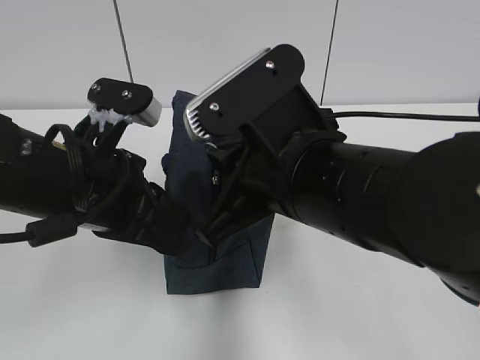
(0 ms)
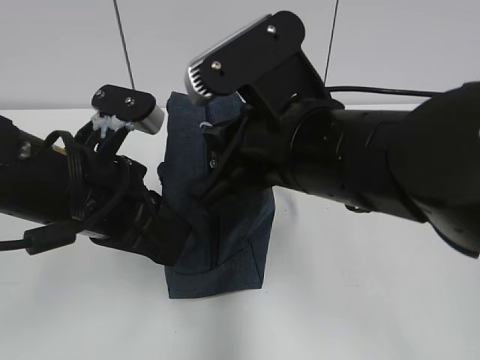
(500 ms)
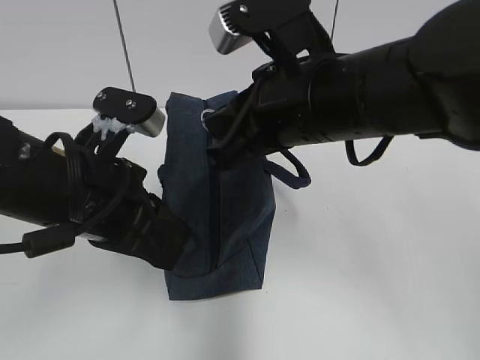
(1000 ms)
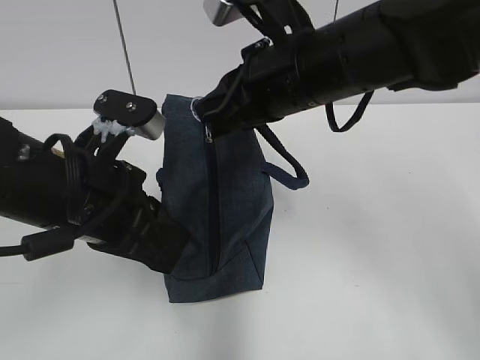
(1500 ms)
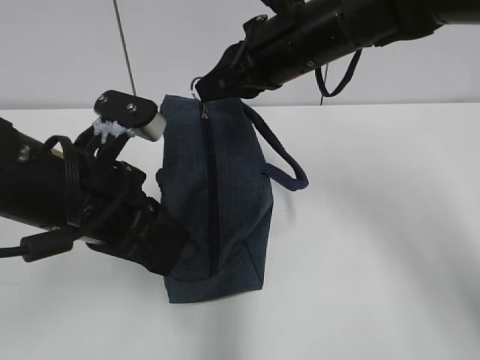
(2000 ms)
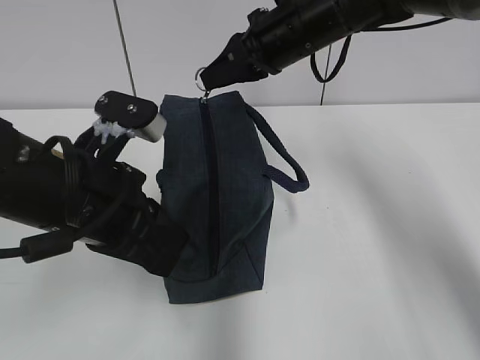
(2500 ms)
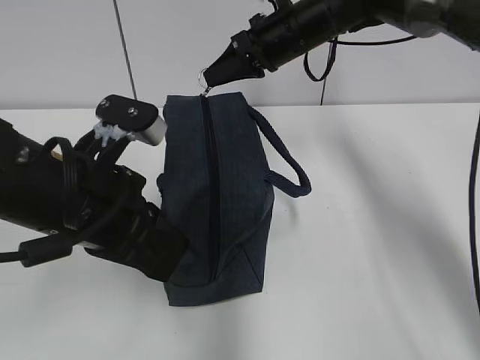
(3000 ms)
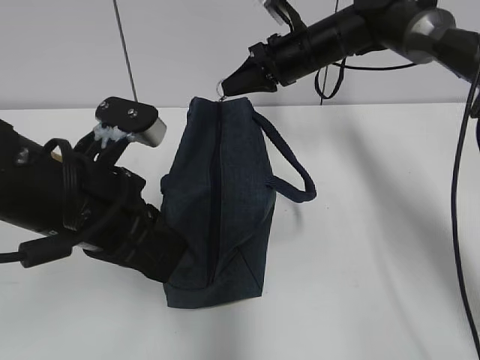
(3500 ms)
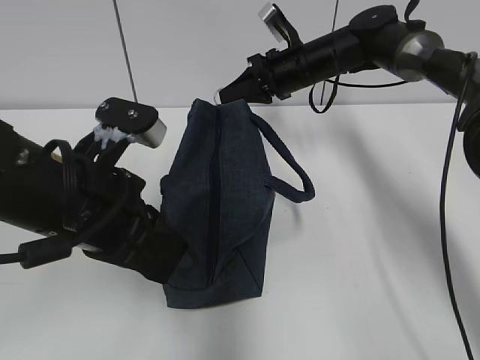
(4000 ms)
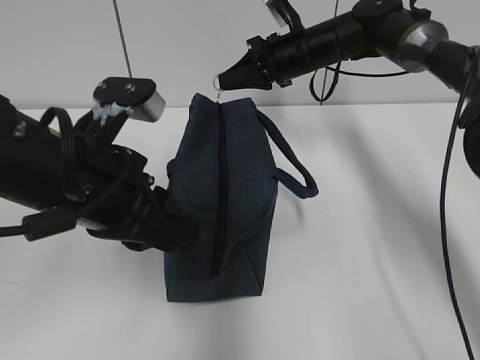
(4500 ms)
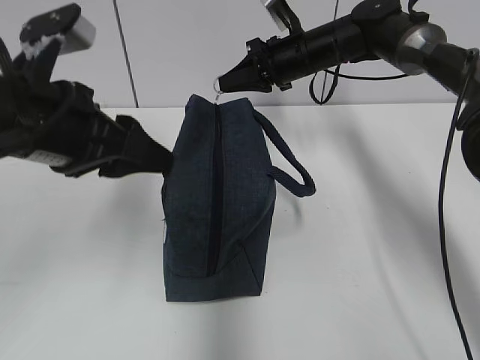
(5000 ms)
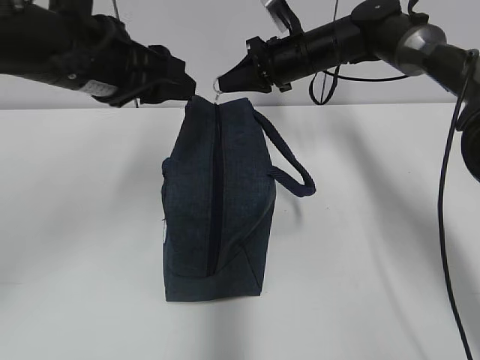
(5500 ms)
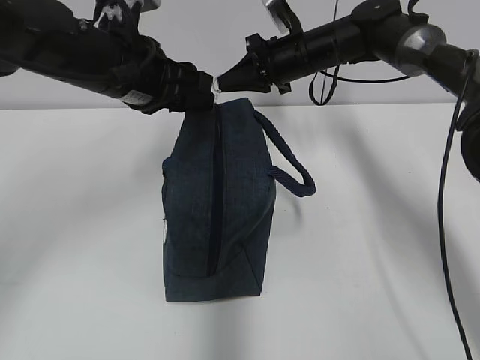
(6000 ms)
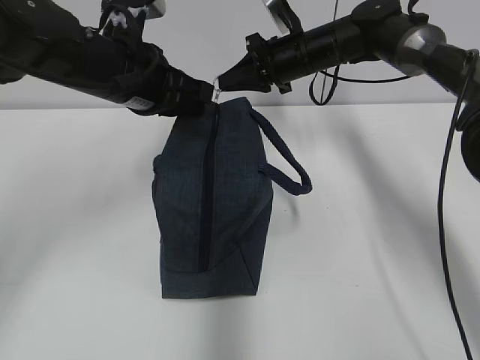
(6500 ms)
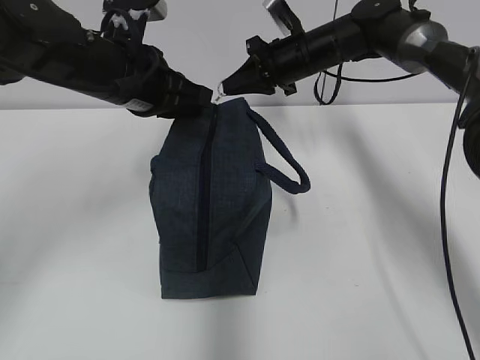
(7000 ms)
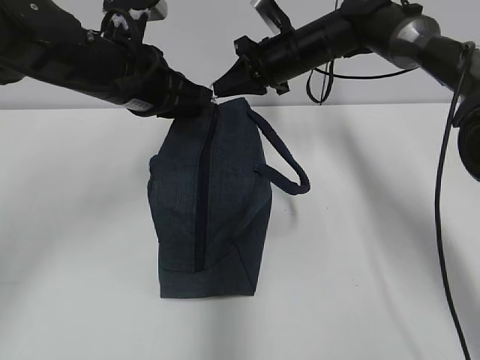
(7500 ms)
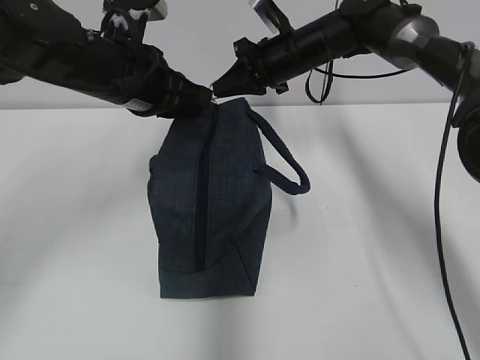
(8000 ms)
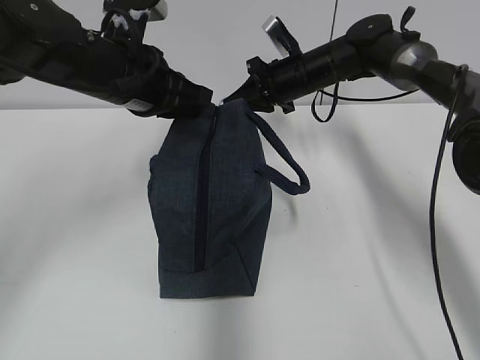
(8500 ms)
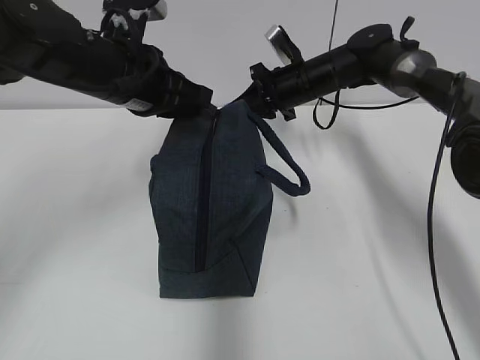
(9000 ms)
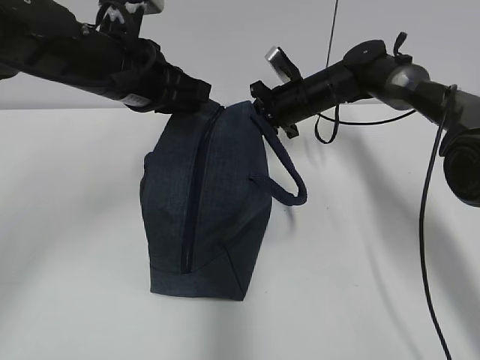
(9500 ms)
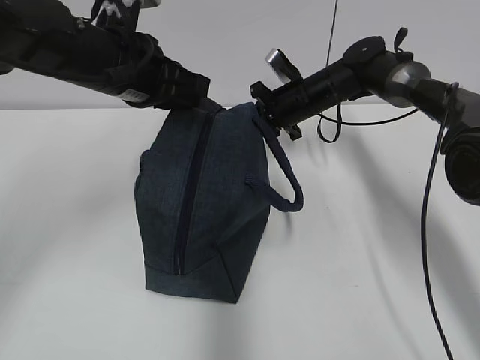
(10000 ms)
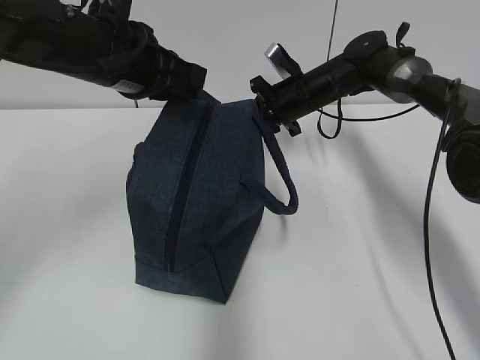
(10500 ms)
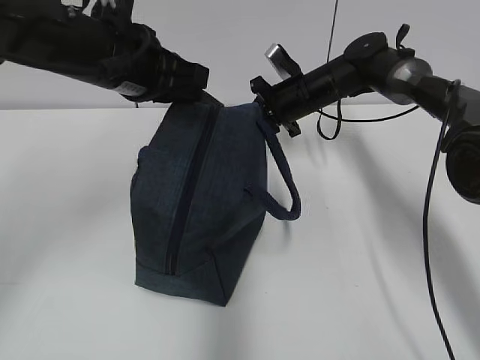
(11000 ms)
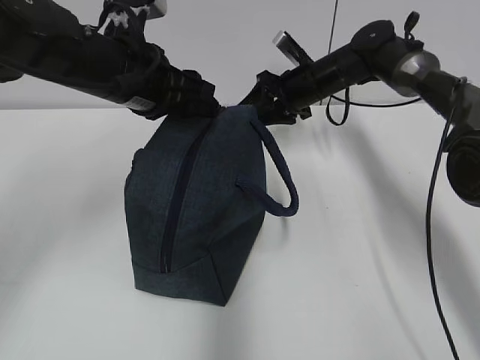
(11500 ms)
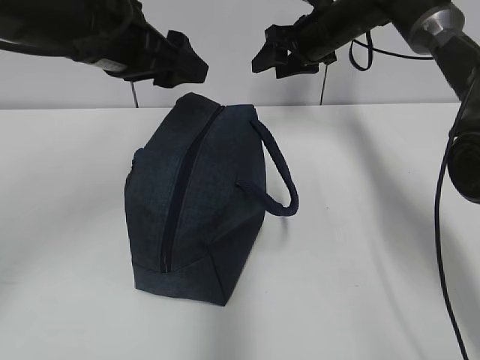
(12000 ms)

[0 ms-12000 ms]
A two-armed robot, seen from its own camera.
0 ms to 2000 ms: The right gripper moves forward, roughly 15 cm.
2000 ms to 4000 ms: The right gripper goes some 20 cm forward and downward.
4000 ms to 6000 ms: The left gripper moves forward, roughly 15 cm, and opens up.
6000 ms to 8000 ms: The left gripper closes.
8000 ms to 10000 ms: The right gripper moves downward, approximately 10 cm.
10000 ms to 12000 ms: The left gripper opens up. Meanwhile the right gripper heads upward, covering about 10 cm, and opens its fingers.

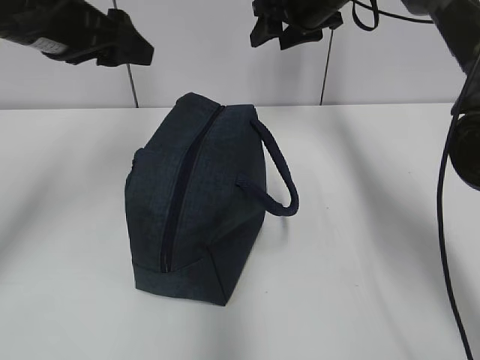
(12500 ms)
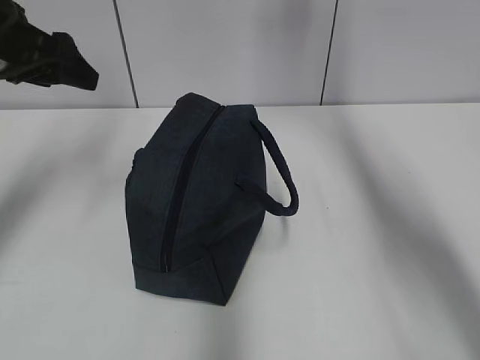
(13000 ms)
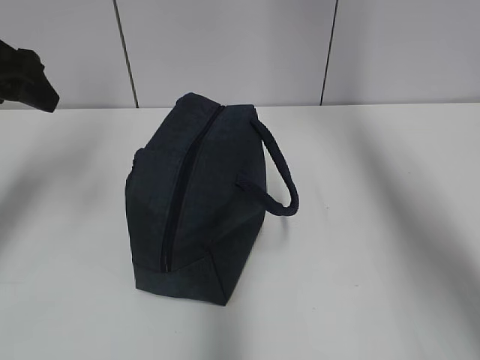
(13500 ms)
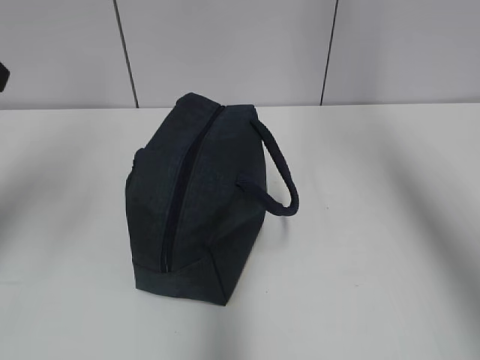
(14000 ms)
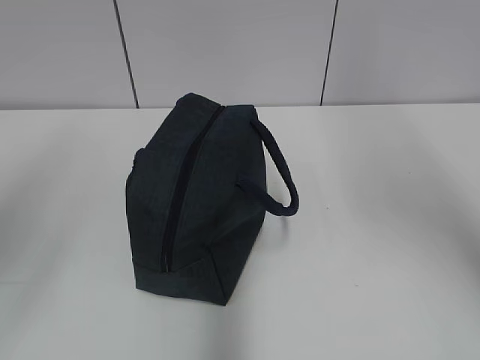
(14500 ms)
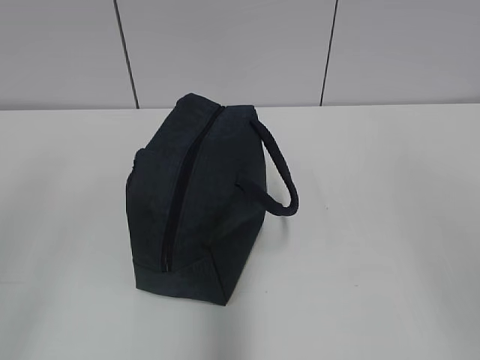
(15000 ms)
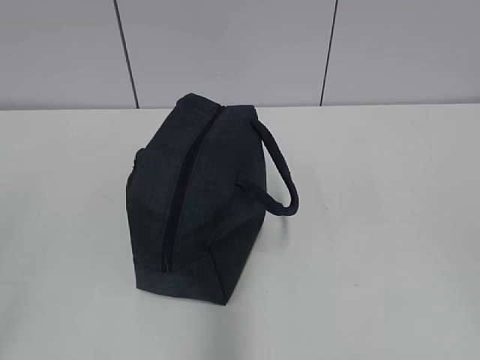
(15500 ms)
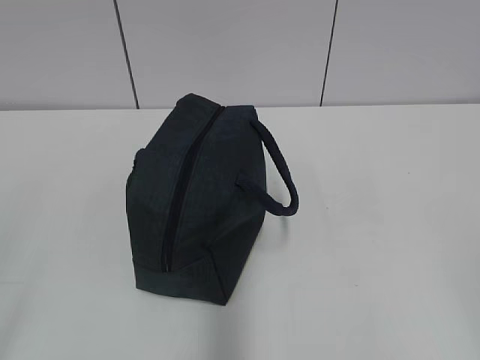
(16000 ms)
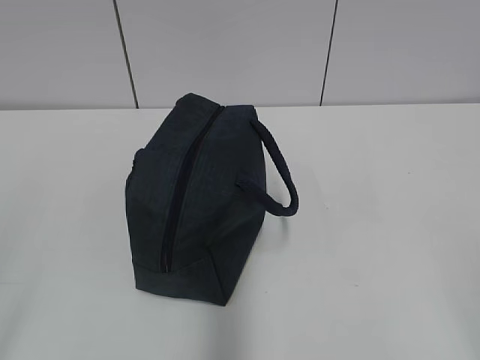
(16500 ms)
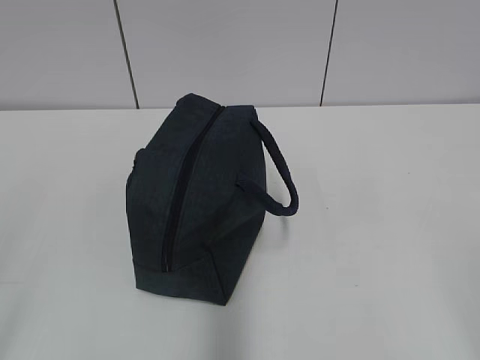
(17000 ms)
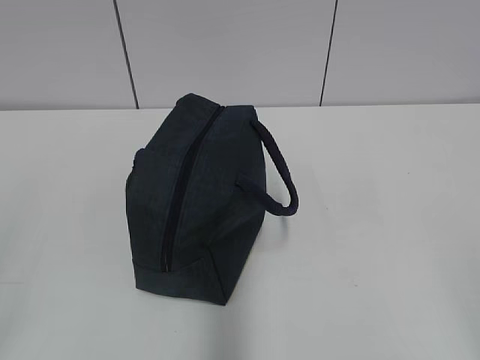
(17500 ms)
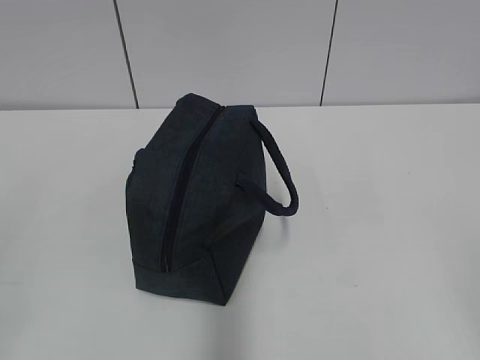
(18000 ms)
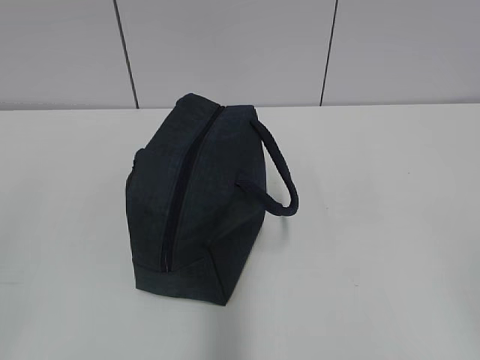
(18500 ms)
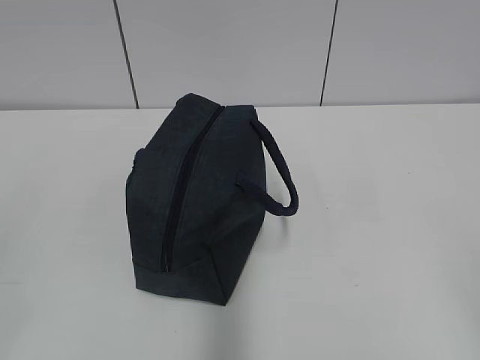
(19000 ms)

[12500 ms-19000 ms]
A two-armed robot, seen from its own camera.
12500 ms to 14500 ms: The left gripper is displaced backward and to the left by about 20 cm. The right gripper moves backward and upward, about 40 cm.
14500 ms to 17000 ms: The right gripper goes some 30 cm downward and backward; the left gripper goes some 20 cm backward and downward.

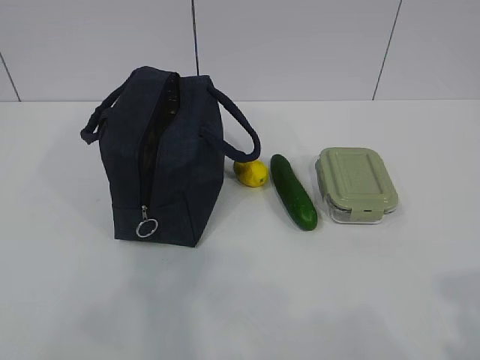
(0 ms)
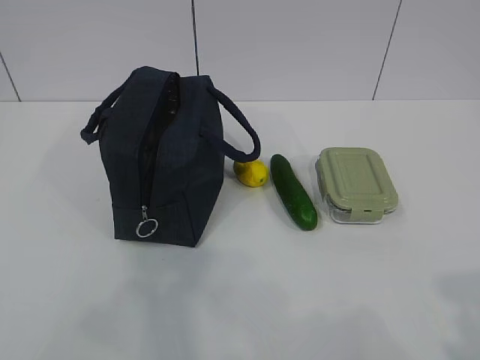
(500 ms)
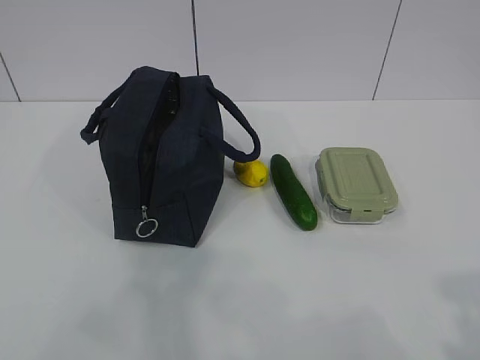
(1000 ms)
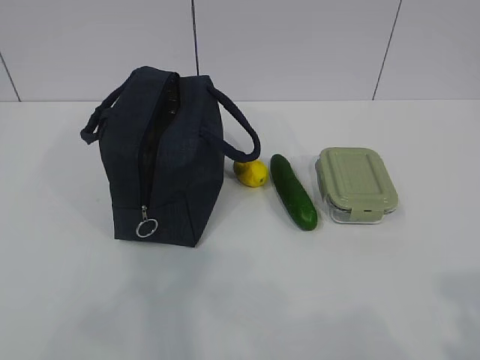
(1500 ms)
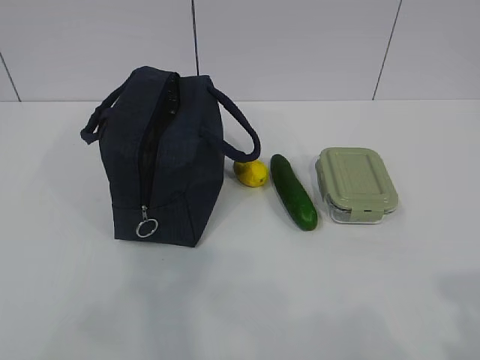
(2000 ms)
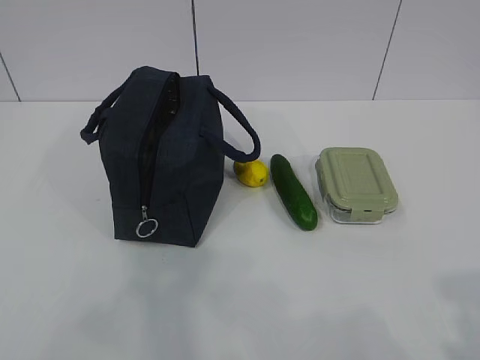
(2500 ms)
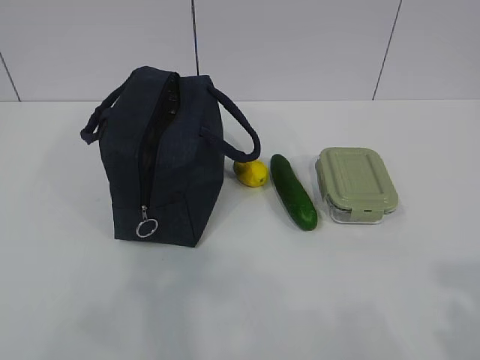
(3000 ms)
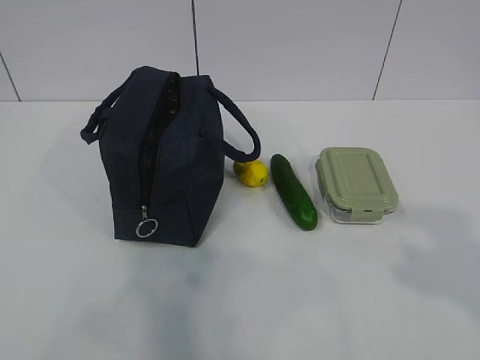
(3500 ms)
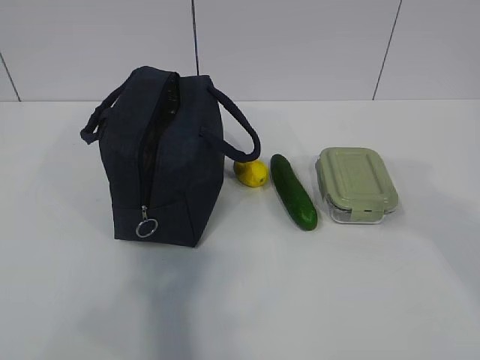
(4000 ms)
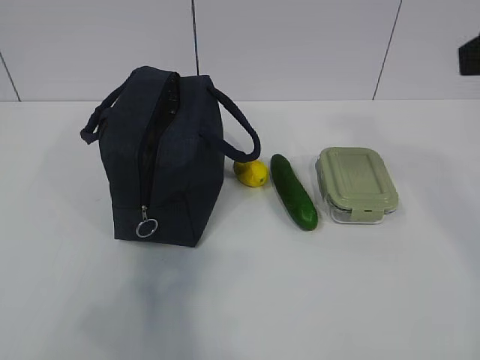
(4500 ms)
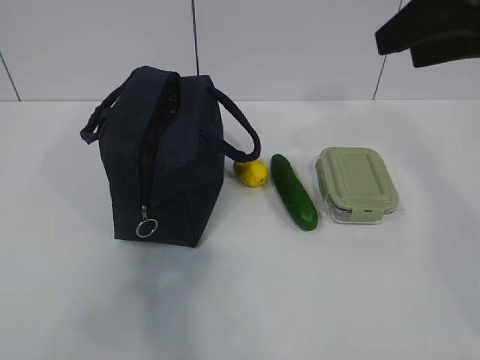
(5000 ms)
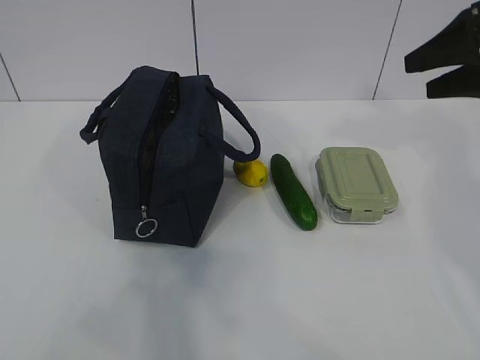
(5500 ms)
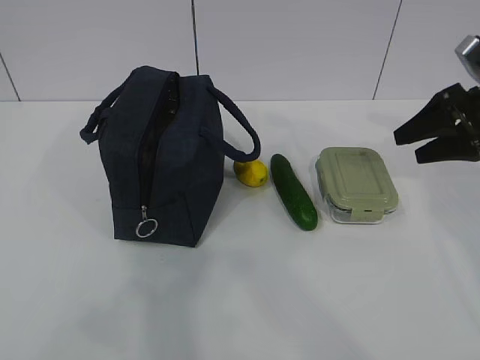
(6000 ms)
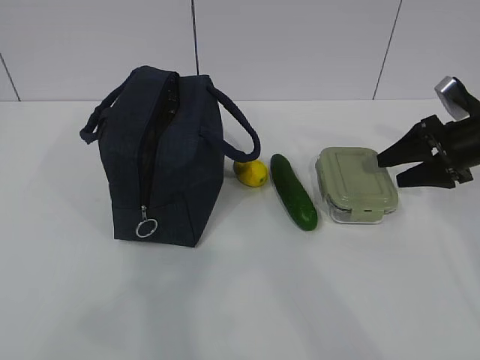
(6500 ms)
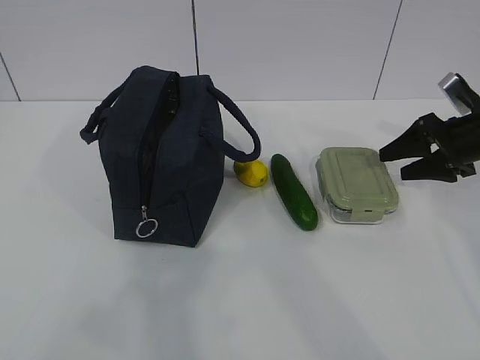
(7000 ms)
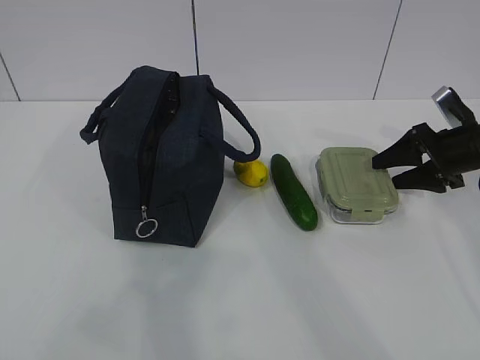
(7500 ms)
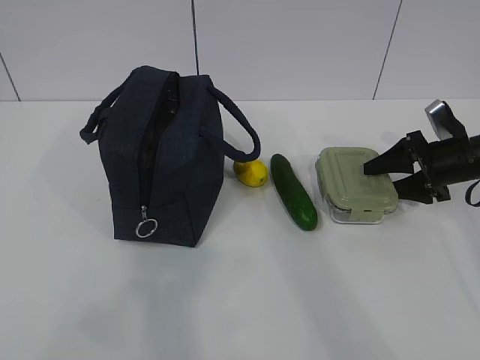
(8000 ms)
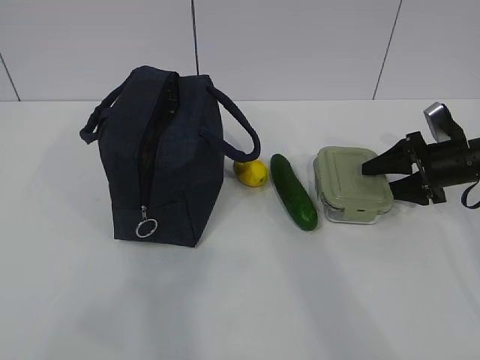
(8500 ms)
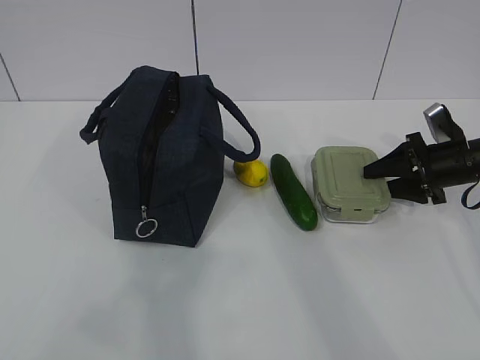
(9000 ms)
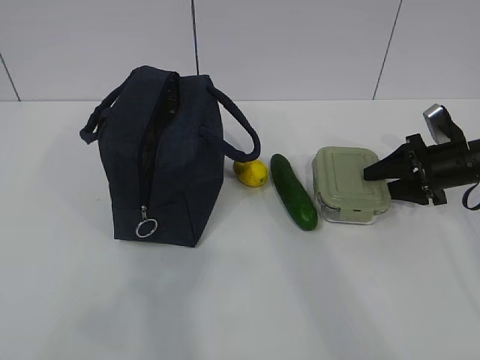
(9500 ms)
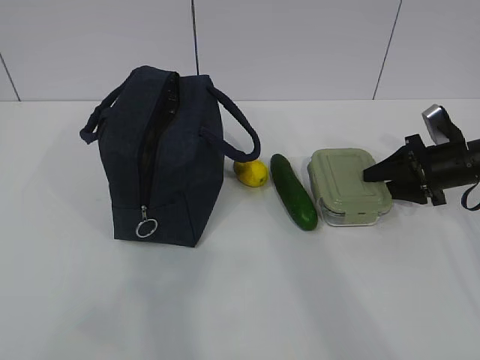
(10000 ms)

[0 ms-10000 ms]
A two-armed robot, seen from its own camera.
Step, 0 ms to 10000 ms: Grab the lunch box with your right hand.
2000 ms to 4000 ms: The right gripper shifts about 15 cm forward and upward.
4000 ms to 6000 ms: The right gripper moves forward and downward, roughly 30 cm.
6000 ms to 8000 ms: The right gripper travels downward by some 10 cm.
8000 ms to 10000 ms: The two grippers keep their place.
